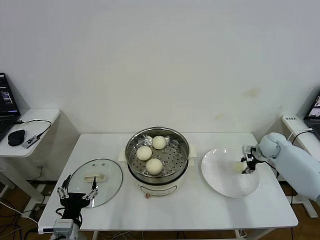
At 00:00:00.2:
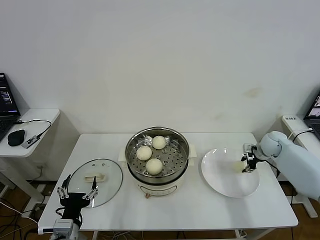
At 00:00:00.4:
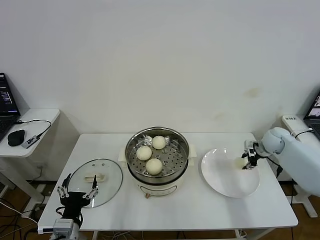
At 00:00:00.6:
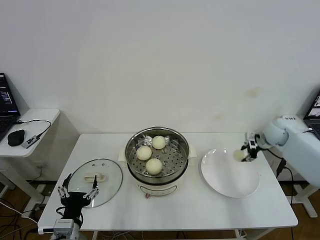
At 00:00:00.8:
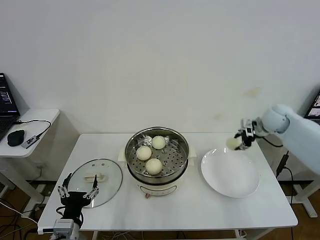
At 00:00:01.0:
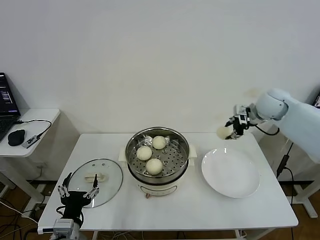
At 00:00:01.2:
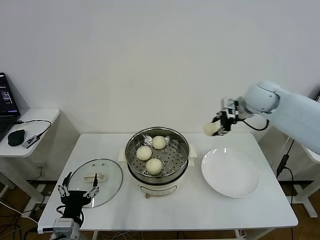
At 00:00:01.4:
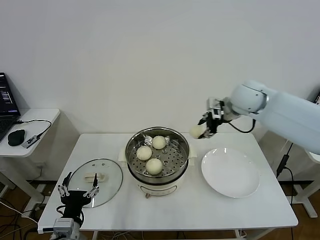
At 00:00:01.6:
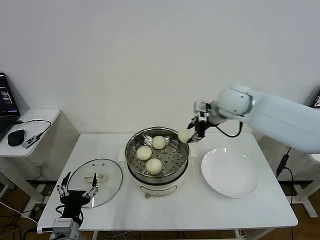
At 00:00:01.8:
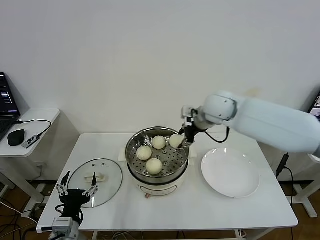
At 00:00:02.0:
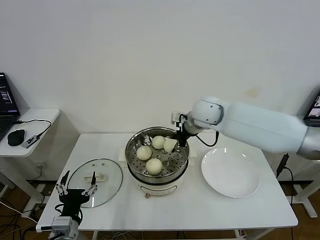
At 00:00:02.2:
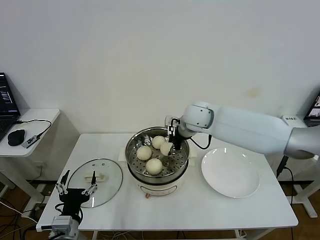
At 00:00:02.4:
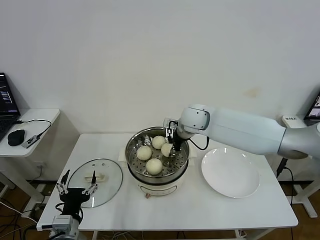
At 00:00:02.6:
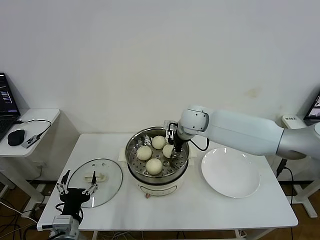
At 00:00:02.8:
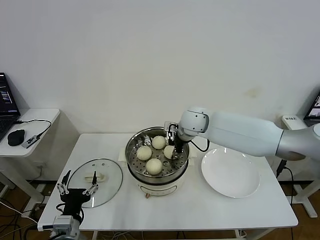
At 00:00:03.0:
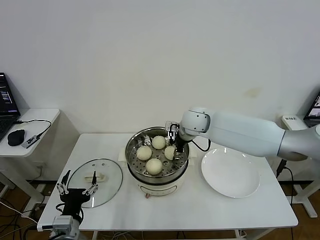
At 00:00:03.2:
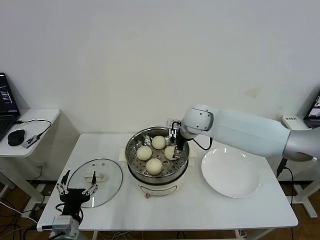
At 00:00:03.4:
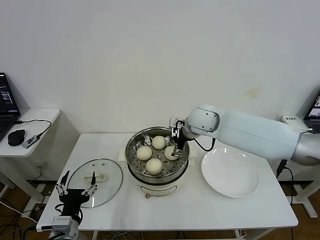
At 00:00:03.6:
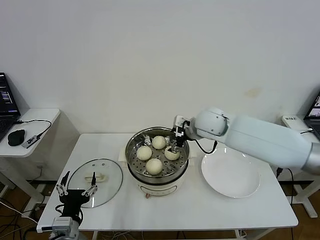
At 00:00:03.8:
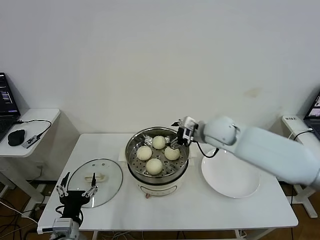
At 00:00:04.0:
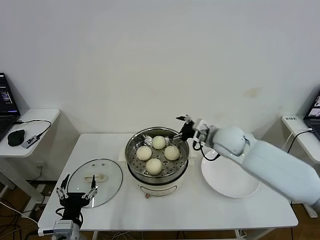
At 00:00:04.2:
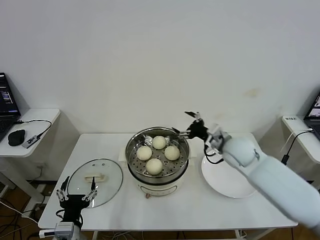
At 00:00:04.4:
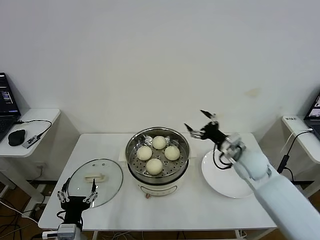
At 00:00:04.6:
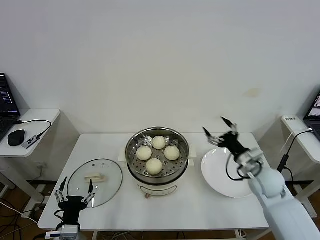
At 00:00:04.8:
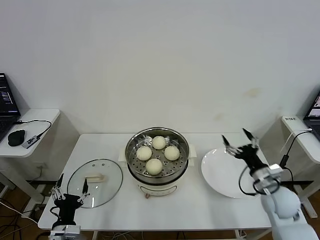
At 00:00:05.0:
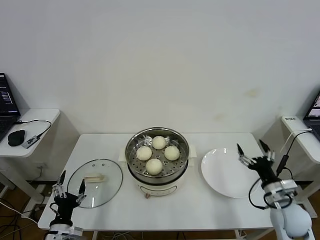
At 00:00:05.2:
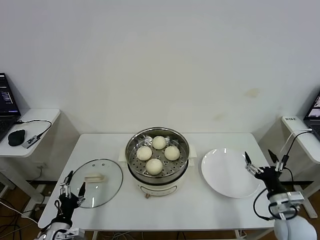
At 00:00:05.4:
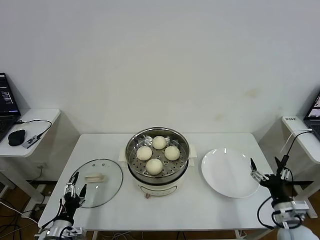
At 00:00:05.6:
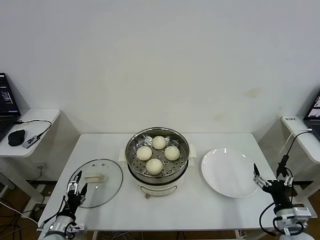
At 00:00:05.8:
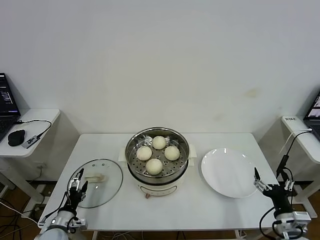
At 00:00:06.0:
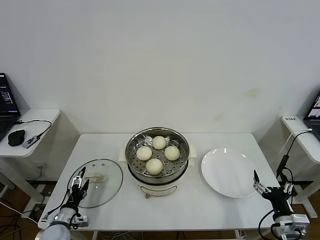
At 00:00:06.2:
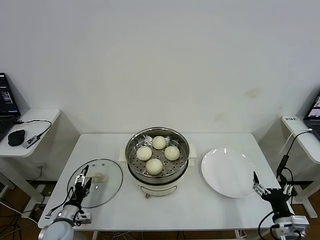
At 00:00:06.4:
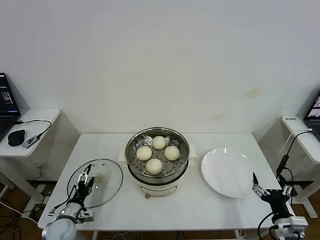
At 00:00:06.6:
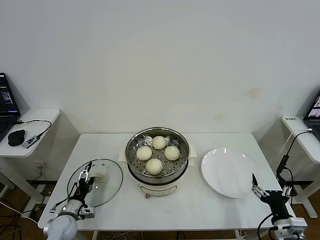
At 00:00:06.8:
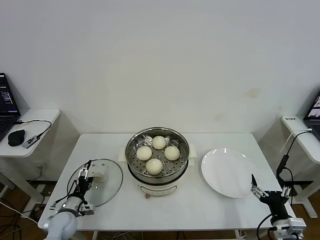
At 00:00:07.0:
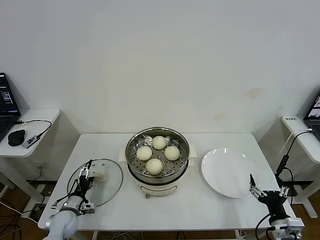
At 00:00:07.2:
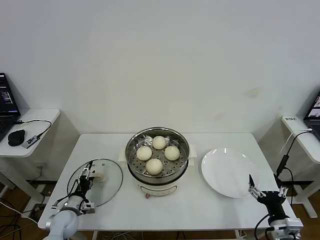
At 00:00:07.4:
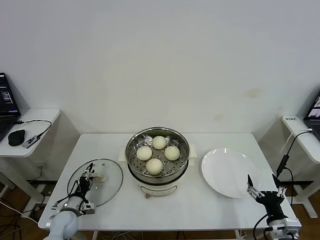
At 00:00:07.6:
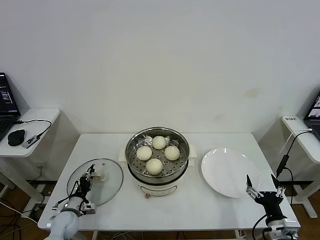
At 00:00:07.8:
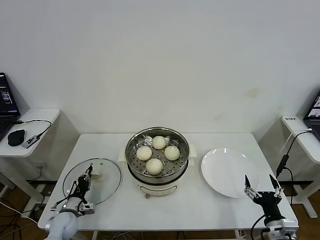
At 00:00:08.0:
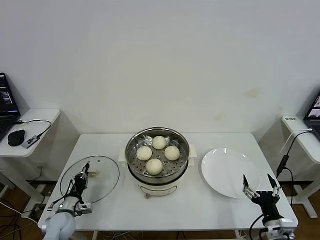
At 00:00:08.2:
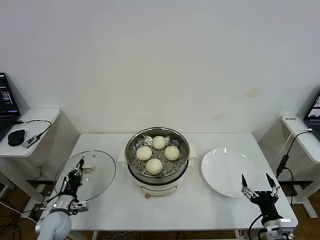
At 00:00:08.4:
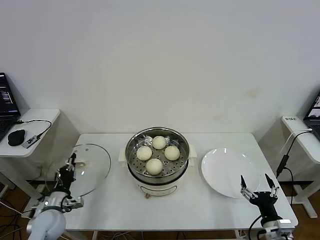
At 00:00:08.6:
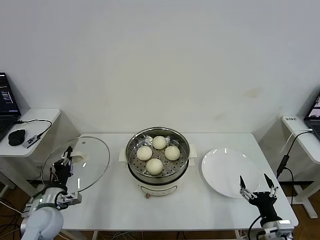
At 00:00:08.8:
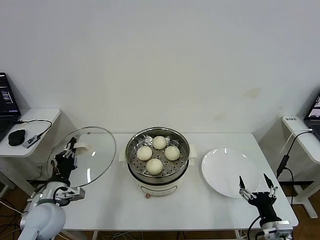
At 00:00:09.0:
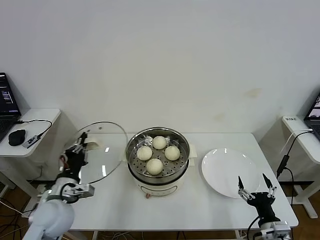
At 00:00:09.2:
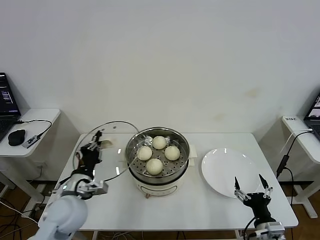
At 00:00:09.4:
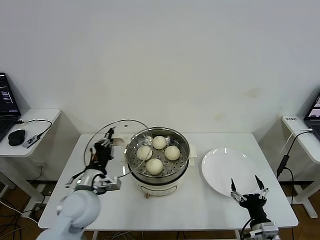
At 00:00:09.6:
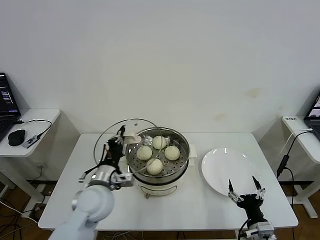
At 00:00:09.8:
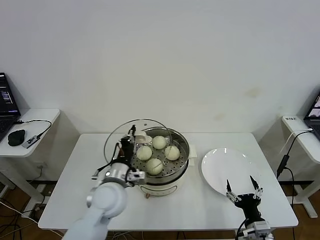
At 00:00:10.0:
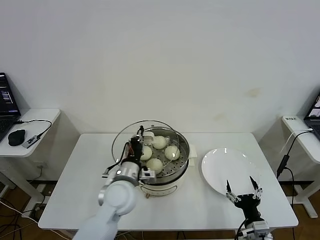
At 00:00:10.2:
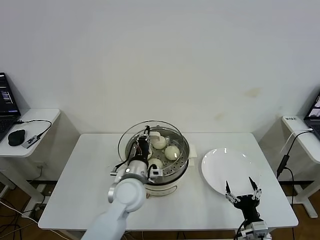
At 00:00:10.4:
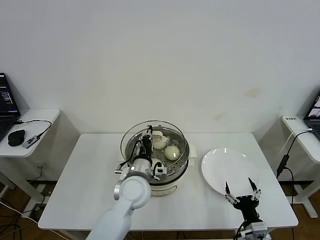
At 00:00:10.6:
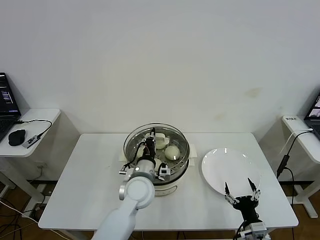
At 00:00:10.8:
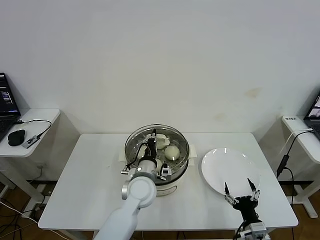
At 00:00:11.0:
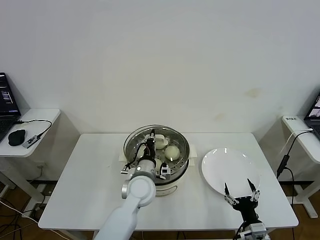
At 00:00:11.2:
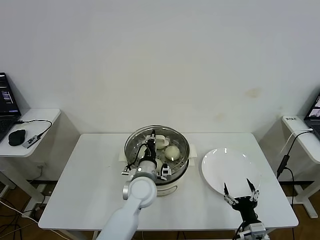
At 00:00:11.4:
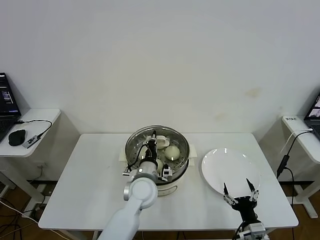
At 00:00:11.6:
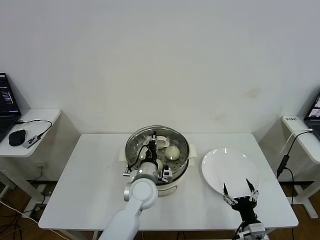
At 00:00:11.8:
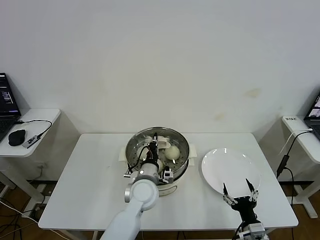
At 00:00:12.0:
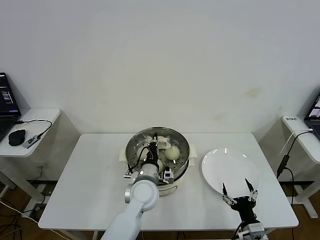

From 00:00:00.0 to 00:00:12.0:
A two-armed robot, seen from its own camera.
Task of the whole recording: take steamed baozi put them in steamer then cover it.
Step, from 00:00:00.4 to 00:00:03.0: Place the baozi on the steamer with right gripper.
Step, from 00:00:03.4 to 00:00:08.0: Grasp the pot lid with left gripper.
From 00:00:00.0 to 00:00:01.6: The right gripper travels to the left and upward by about 30 cm.
From 00:00:01.6 to 00:00:03.0: The right gripper goes approximately 15 cm to the left and downward, and opens up.
From 00:00:03.0 to 00:00:04.4: The right gripper heads to the right, backward and downward, covering about 20 cm.
From 00:00:04.4 to 00:00:06.0: The left gripper heads downward, to the left and forward, covering some 20 cm. The right gripper travels backward, downward and to the right by some 30 cm.
From 00:00:06.0 to 00:00:07.6: The left gripper travels forward by about 5 cm, and closes.
From 00:00:07.6 to 00:00:09.0: The left gripper heads upward, covering about 20 cm, and closes.
From 00:00:09.0 to 00:00:10.4: The left gripper heads to the right, covering about 20 cm.
From 00:00:10.4 to 00:00:12.0: The grippers make only small movements.

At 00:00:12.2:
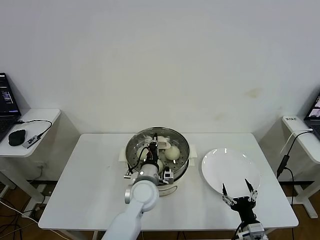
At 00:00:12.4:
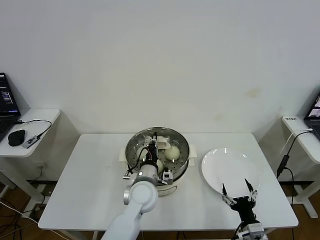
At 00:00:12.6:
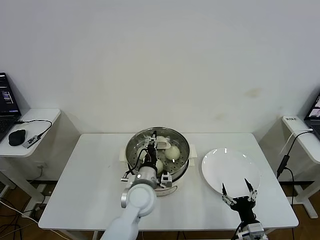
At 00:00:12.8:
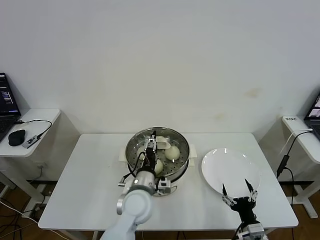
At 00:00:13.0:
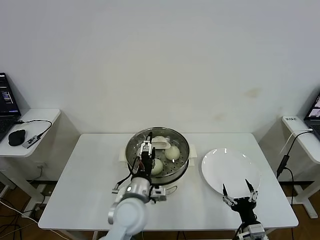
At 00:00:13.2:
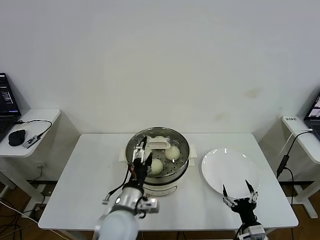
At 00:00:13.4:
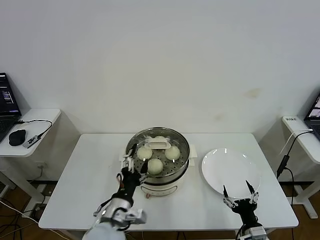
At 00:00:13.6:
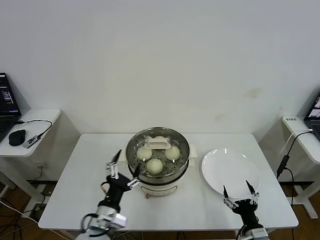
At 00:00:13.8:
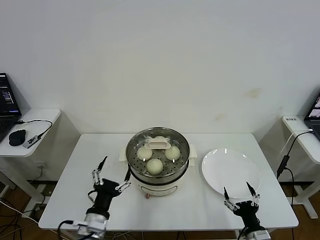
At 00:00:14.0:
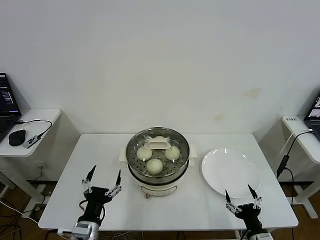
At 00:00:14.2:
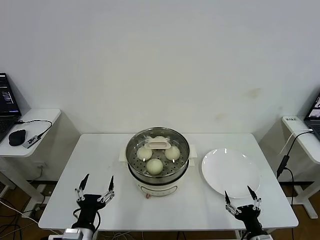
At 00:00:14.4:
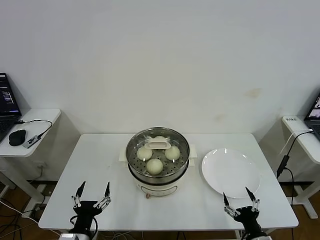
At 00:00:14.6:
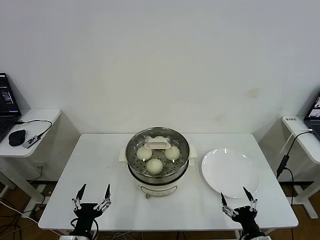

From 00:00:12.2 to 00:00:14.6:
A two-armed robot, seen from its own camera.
Task of the whole recording: take steamed baozi put them in steamer then cover it.
From 00:00:12.2 to 00:00:13.4: The left gripper travels backward and to the left by about 15 cm, and opens up.
From 00:00:13.4 to 00:00:14.6: The left gripper travels to the left, backward and downward by some 15 cm.
